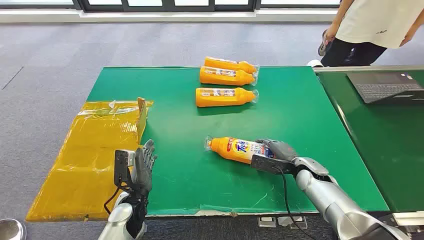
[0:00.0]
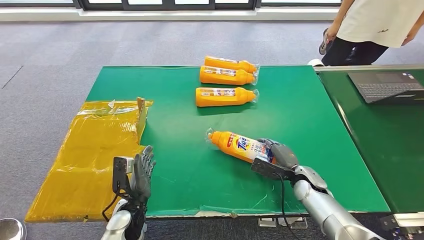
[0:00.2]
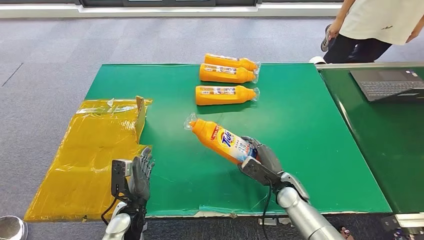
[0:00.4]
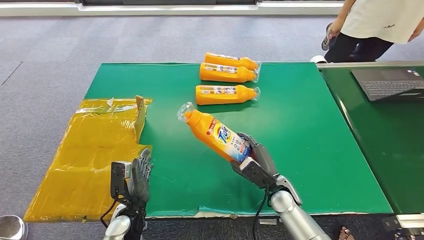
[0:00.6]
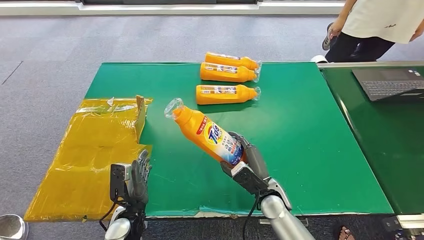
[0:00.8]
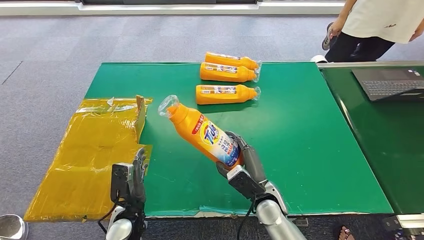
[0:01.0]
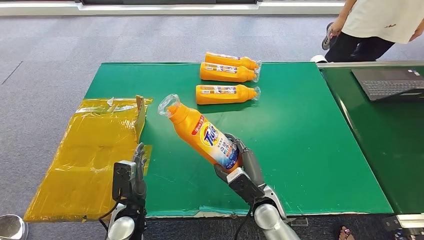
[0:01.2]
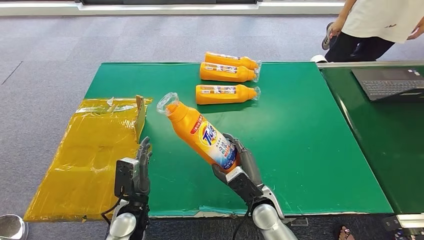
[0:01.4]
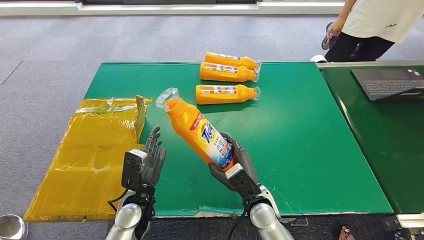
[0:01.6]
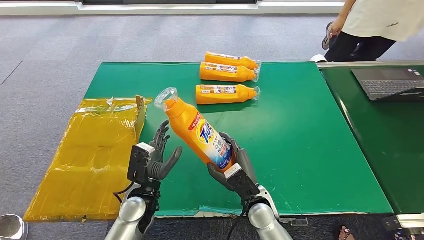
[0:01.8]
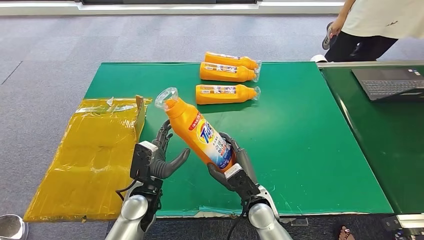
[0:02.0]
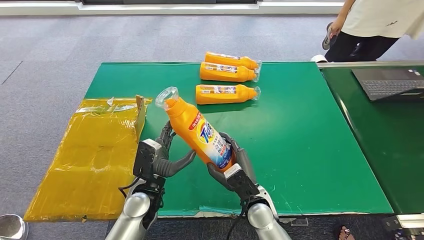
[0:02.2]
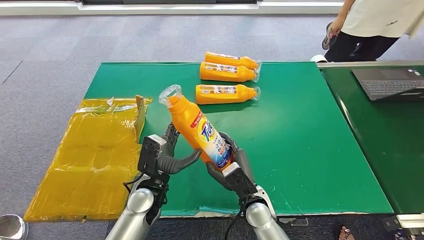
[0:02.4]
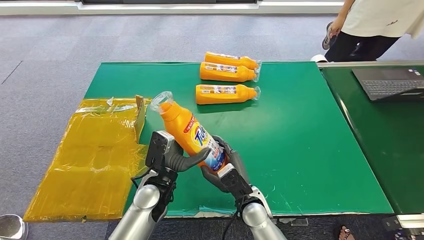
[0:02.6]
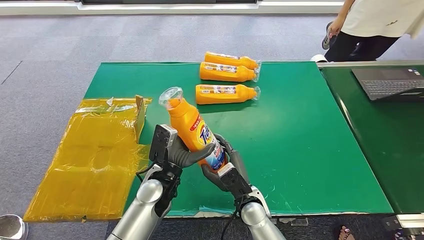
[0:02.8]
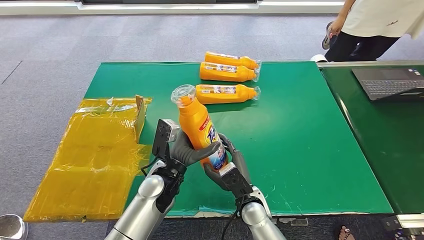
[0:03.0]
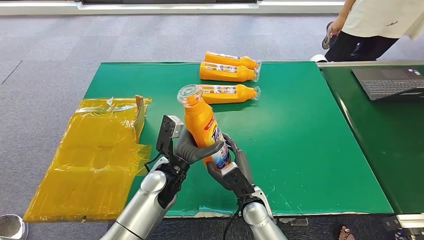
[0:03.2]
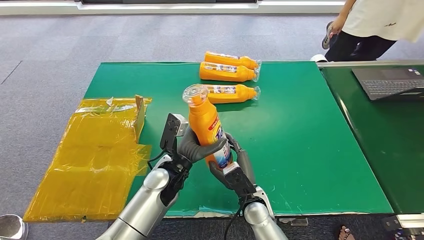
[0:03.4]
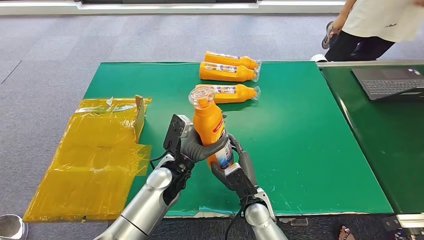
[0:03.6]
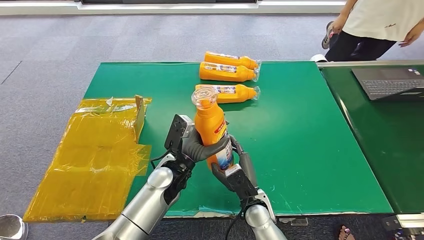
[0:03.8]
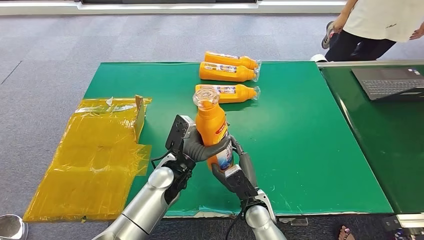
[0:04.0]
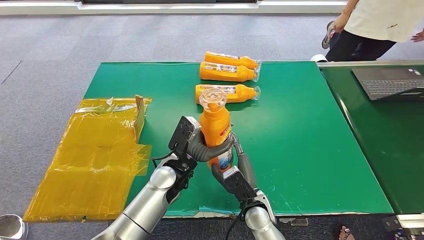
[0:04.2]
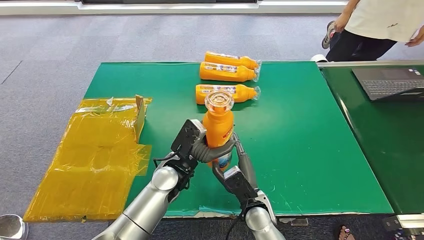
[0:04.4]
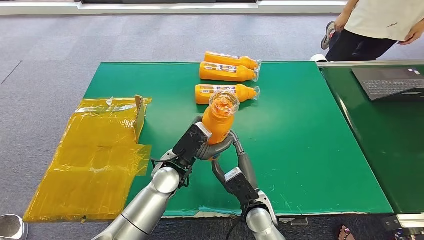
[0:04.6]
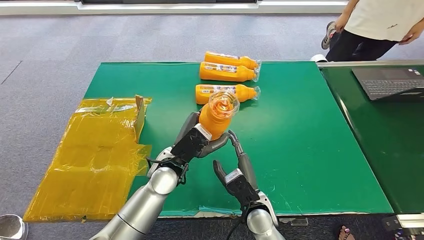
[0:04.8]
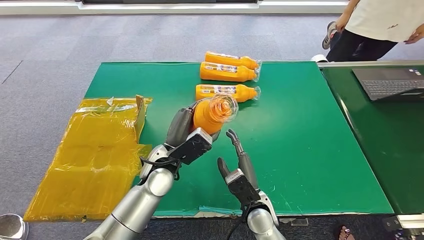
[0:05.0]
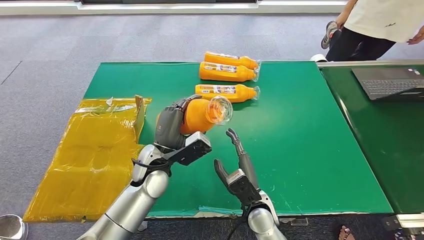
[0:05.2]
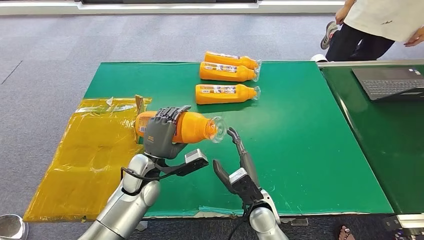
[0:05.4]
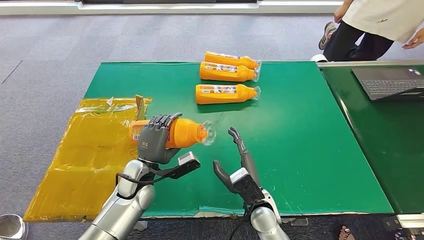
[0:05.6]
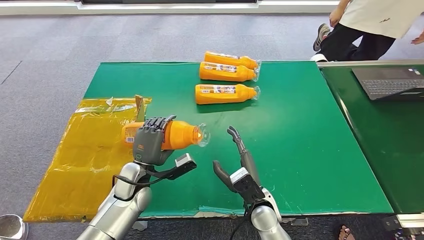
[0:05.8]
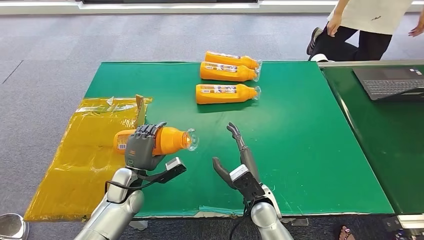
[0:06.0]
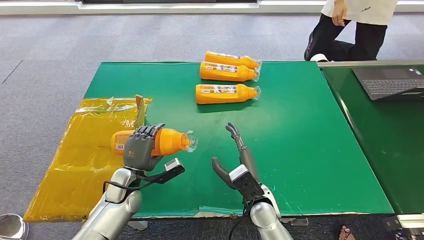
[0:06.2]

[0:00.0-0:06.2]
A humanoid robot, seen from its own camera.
Step, 0:00.0 to 0:01.0: Pick up the bottle from the table.
Step, 0:01.4 to 0:06.2: Turn the bottle to the front side.
0:01.6 to 0:03.2: The left hand moves to the right, forward and upward, about 10 cm.
0:04.6 to 0:06.2: The left hand heads to the left and downward, covering roughly 20 cm.

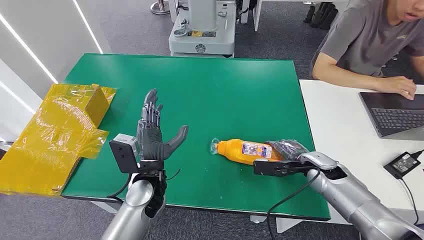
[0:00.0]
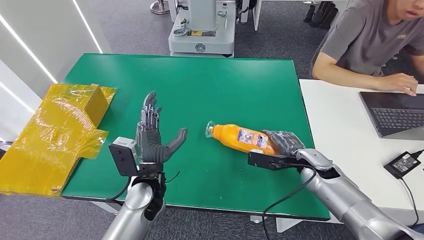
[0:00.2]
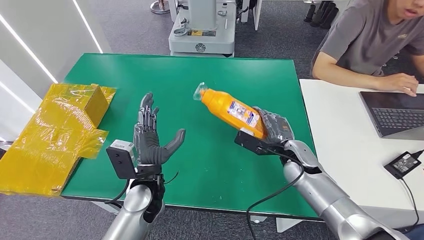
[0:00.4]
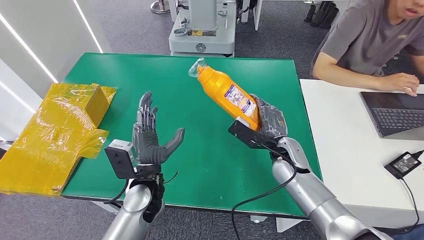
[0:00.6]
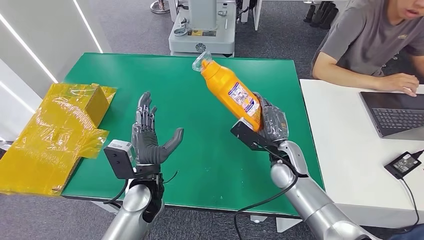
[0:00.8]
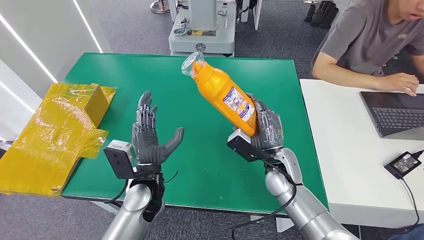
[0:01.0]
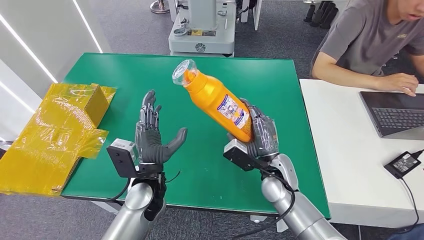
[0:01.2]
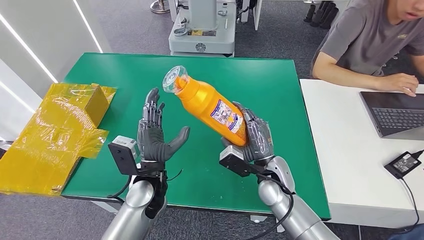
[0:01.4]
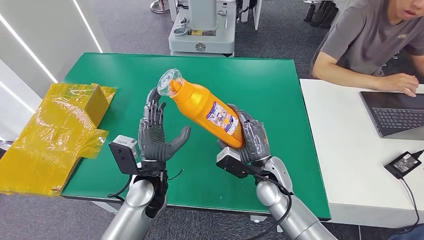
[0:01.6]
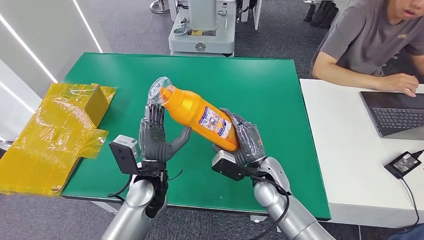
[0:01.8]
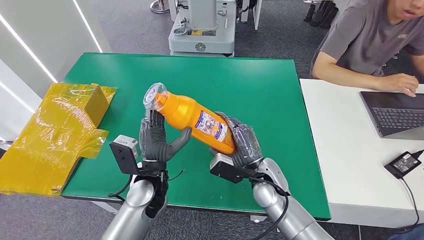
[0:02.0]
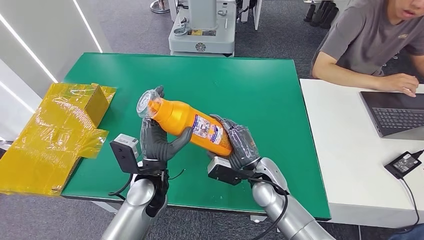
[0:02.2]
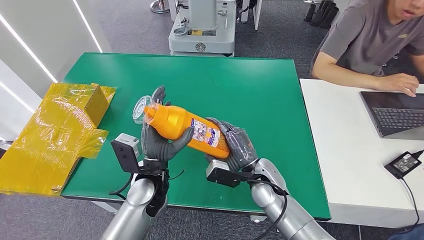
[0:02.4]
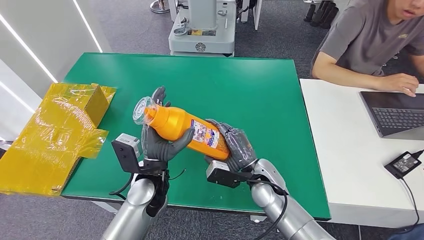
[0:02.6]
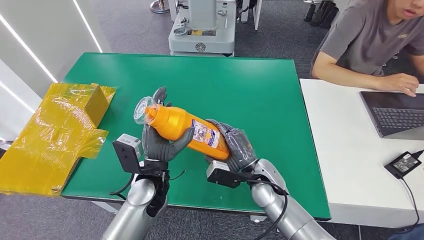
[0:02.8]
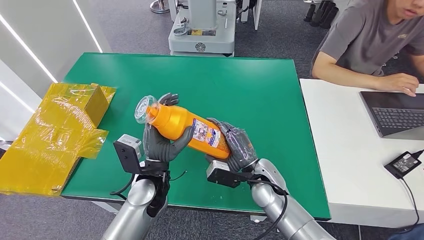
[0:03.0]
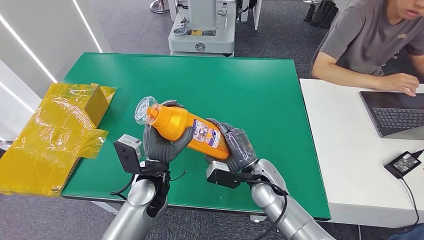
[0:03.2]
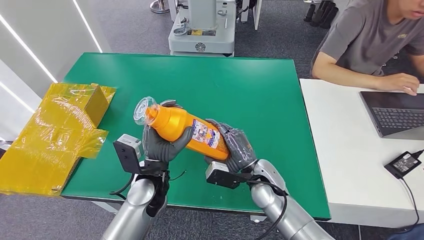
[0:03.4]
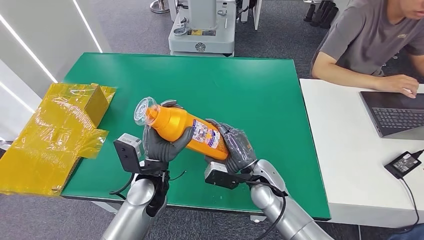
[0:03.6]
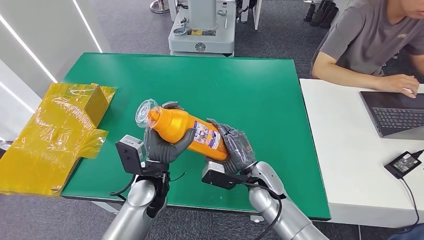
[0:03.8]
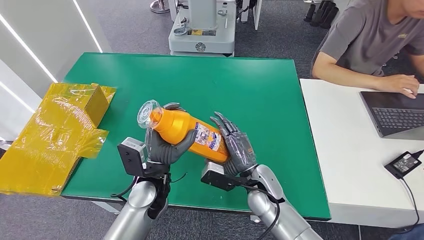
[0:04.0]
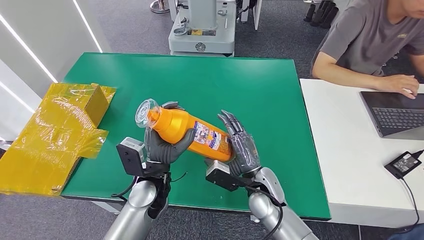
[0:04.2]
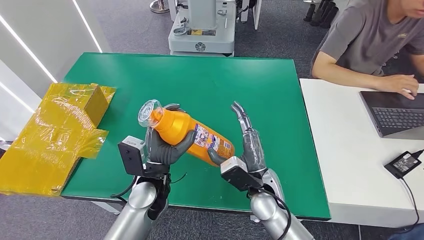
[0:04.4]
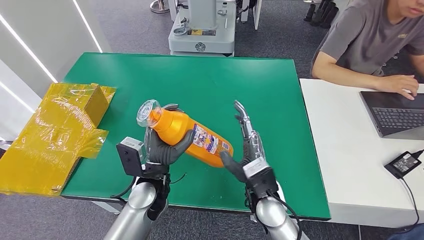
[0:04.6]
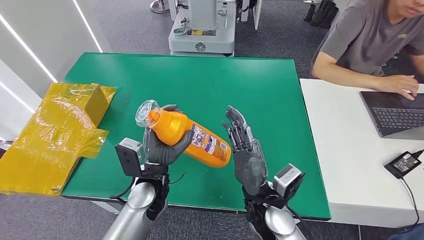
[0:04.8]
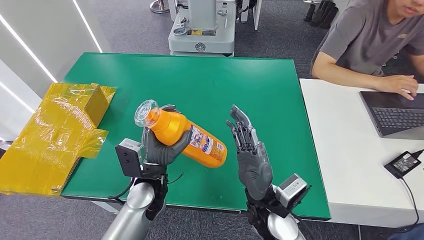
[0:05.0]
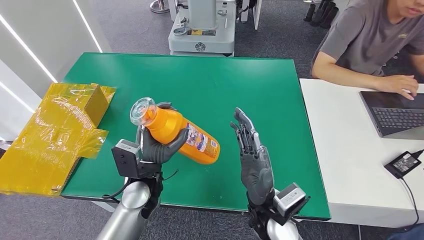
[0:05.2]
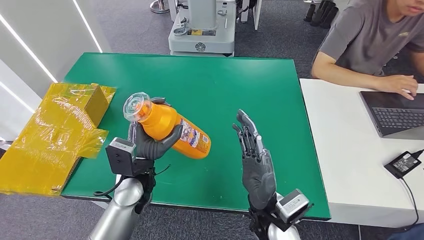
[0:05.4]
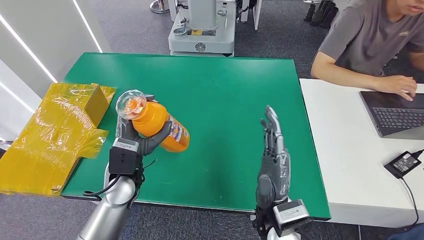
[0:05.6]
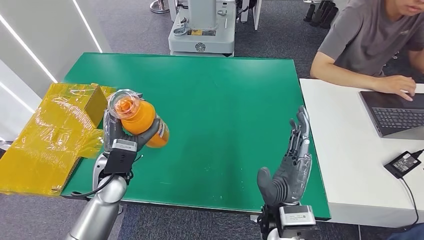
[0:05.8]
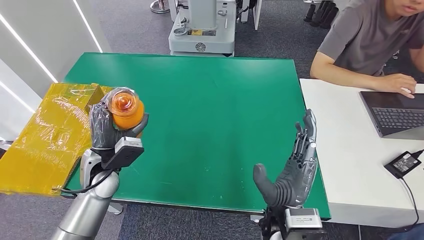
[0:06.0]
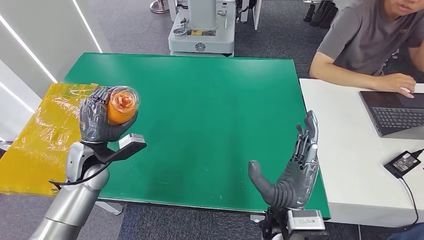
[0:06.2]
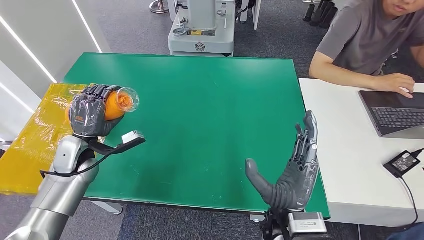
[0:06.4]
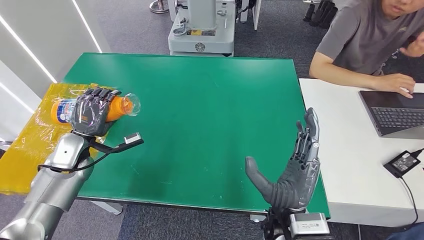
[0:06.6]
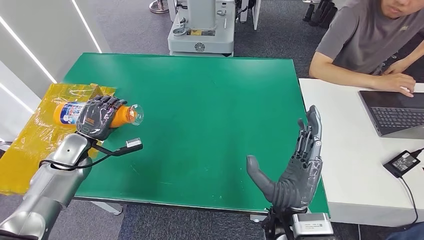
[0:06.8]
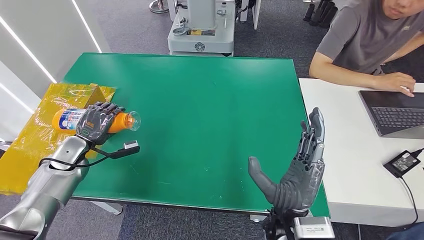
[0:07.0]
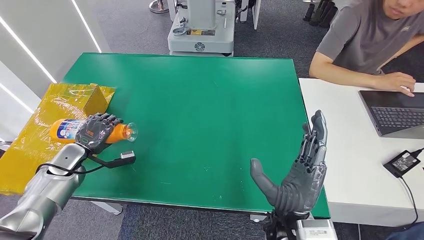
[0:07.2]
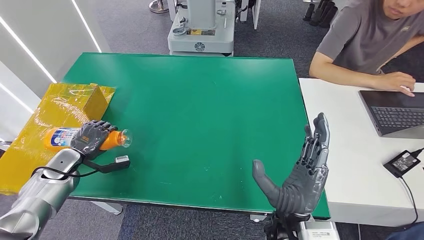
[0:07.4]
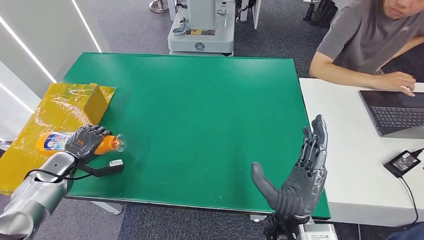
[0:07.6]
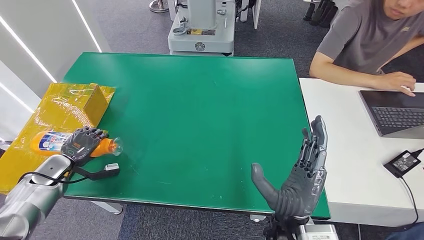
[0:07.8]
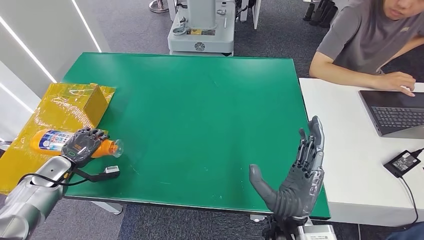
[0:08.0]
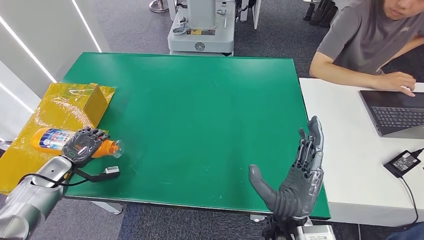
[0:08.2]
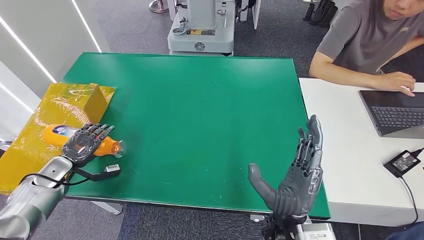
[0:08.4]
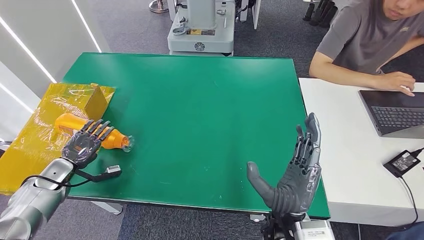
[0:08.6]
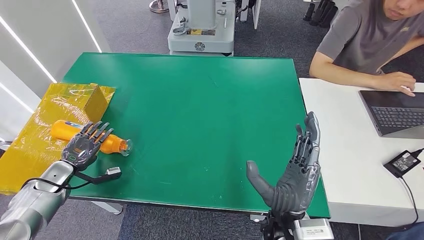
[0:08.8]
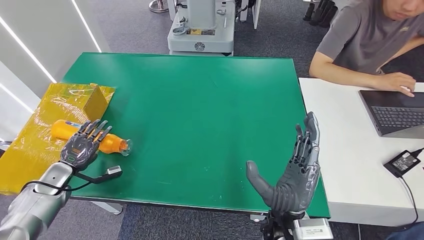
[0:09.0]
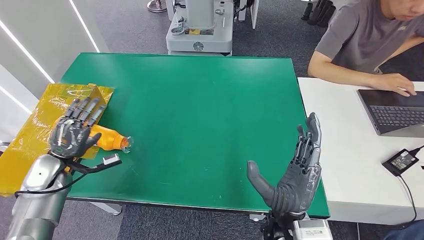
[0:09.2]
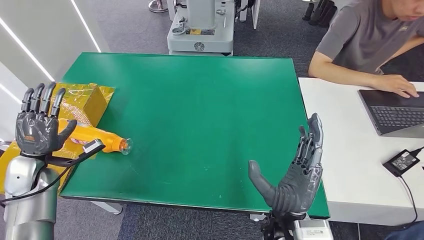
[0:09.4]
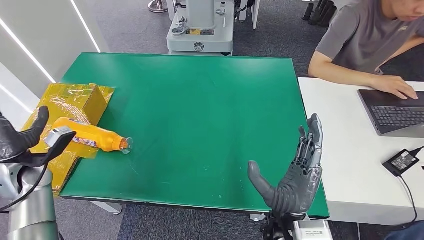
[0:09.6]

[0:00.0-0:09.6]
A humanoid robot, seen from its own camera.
Step, 0:00.0 to 0:03.0: Pick up the bottle from the table.
Step, 0:04.8 to 0:09.6: Turn the bottle to the front side.
0:01.6 to 0:03.2: The hands make only small movements.
0:03.2 to 0:04.8: The right hand goes approximately 10 cm backward.
0:06.4 to 0:08.0: The left hand travels to the left and downward by approximately 15 cm.
0:08.0 to 0:09.6: The left hand goes some 10 cm upward.

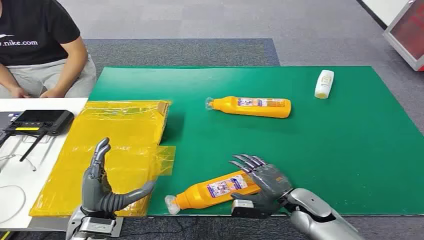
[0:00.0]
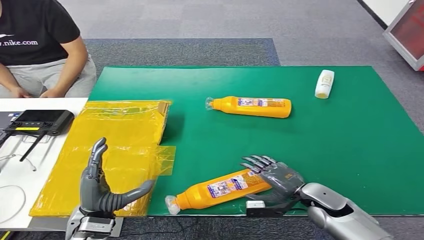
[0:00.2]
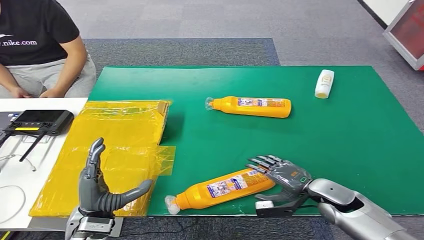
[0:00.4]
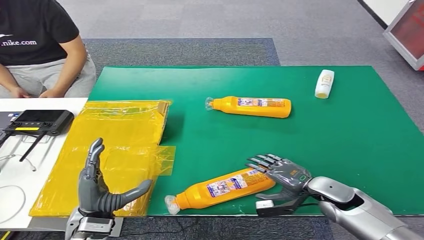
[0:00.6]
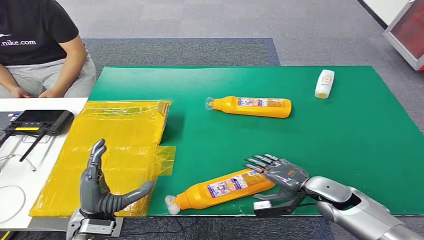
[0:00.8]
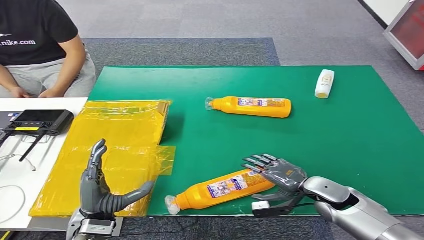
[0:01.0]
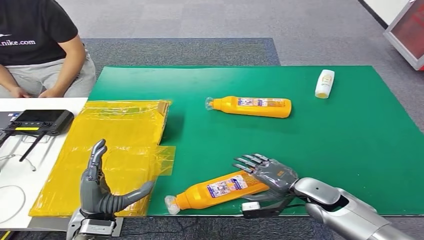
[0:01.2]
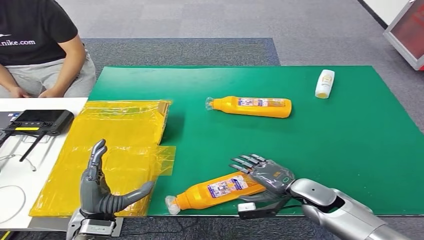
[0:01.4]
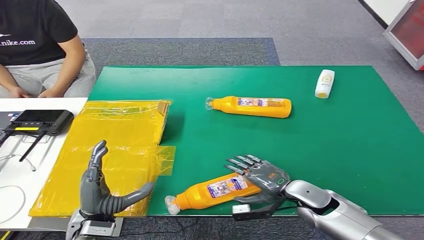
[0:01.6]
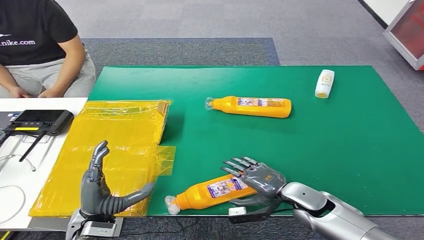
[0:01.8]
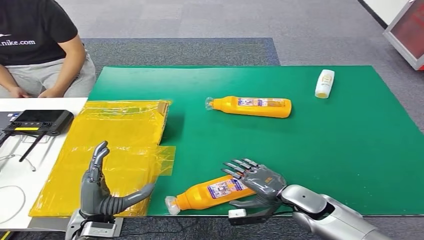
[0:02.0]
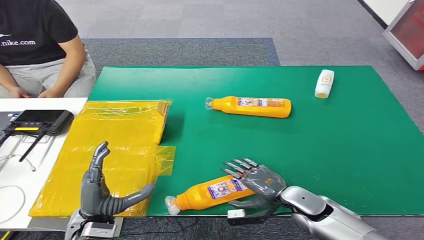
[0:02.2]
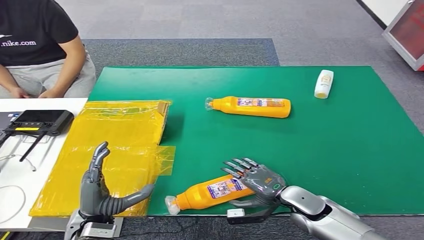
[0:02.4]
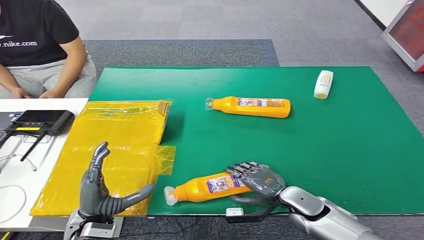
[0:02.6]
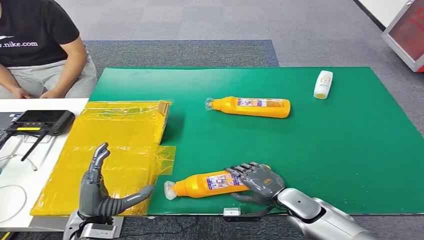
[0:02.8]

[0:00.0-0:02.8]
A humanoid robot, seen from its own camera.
0:01.4 to 0:02.8: There are only small adjustments of the hands.
